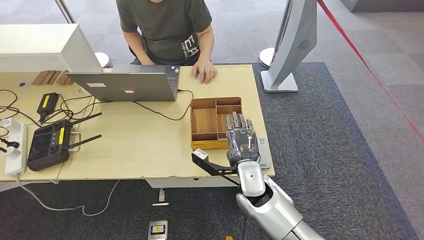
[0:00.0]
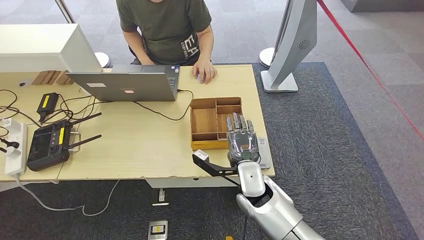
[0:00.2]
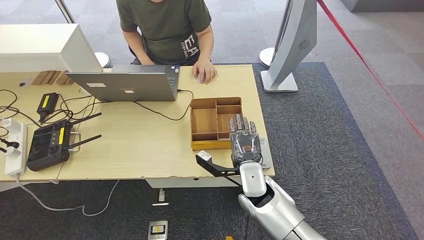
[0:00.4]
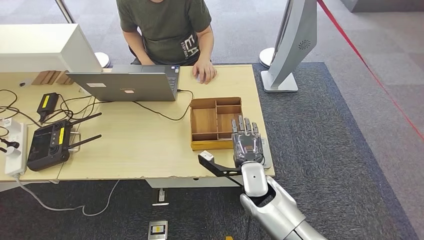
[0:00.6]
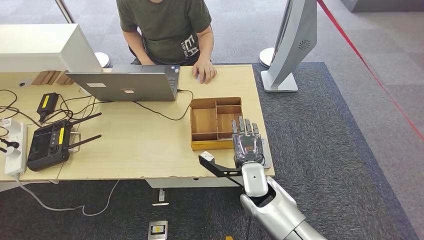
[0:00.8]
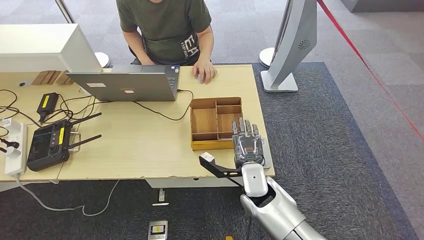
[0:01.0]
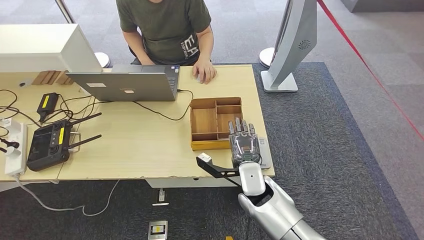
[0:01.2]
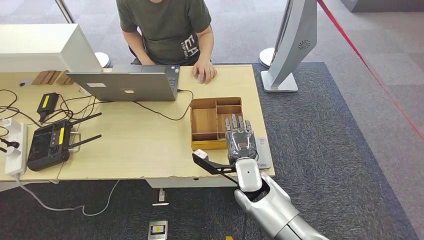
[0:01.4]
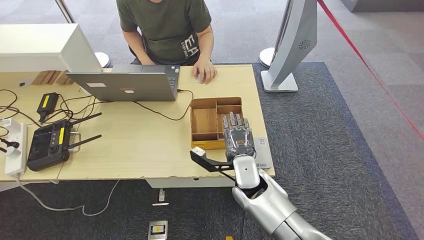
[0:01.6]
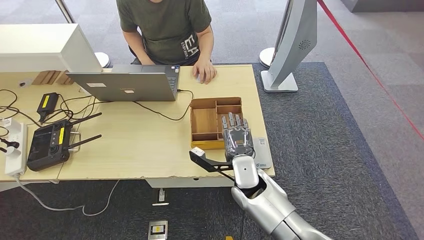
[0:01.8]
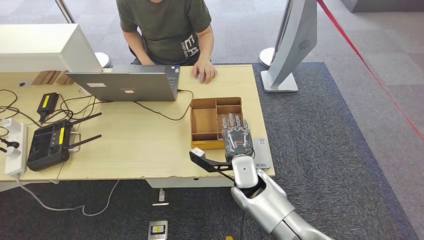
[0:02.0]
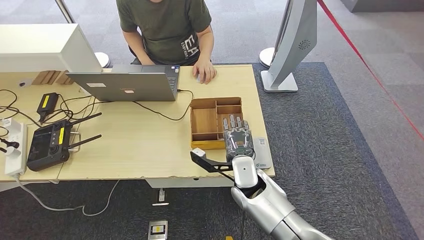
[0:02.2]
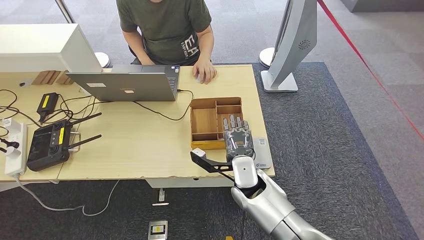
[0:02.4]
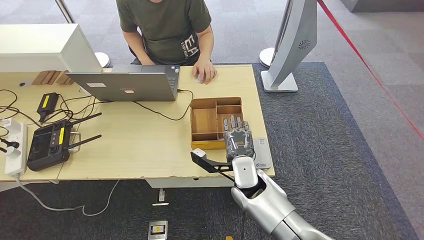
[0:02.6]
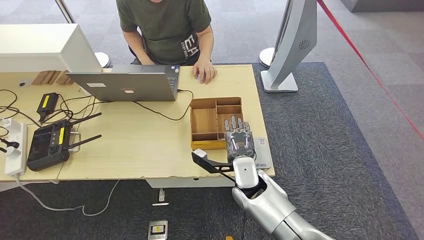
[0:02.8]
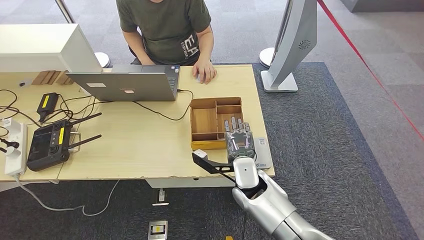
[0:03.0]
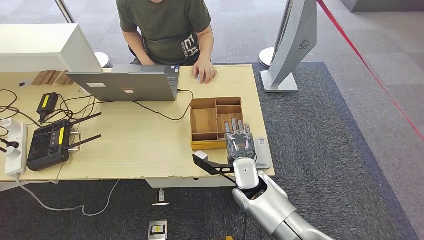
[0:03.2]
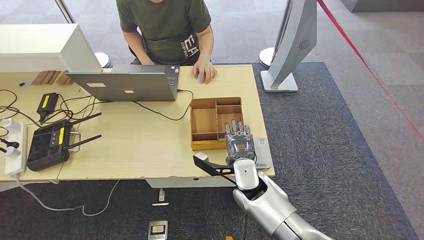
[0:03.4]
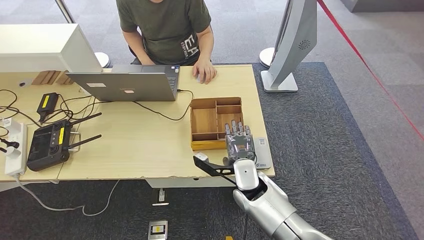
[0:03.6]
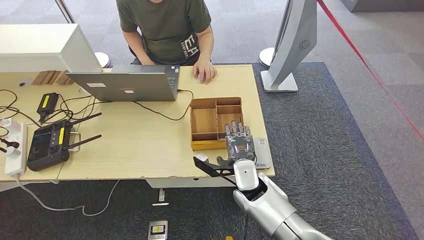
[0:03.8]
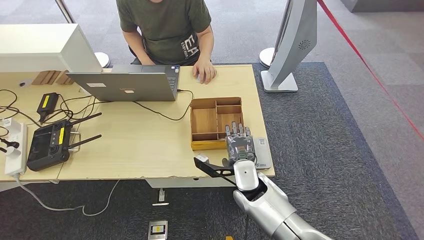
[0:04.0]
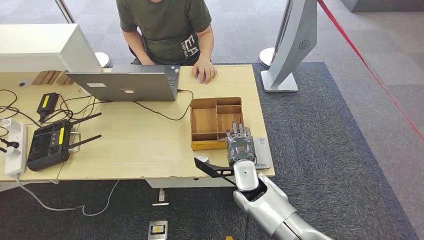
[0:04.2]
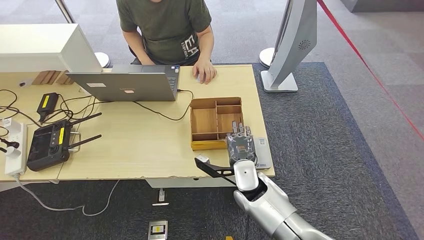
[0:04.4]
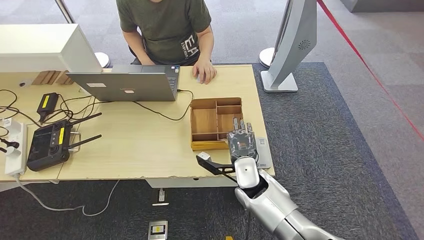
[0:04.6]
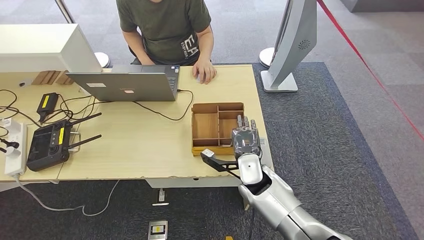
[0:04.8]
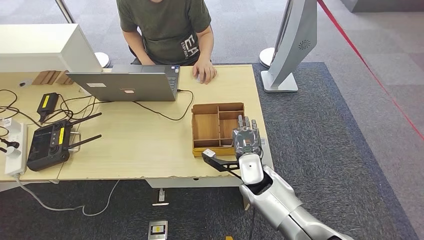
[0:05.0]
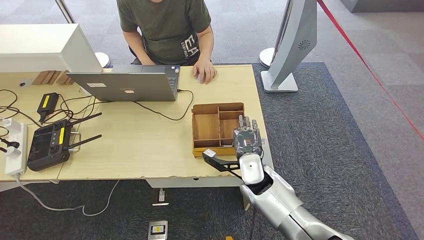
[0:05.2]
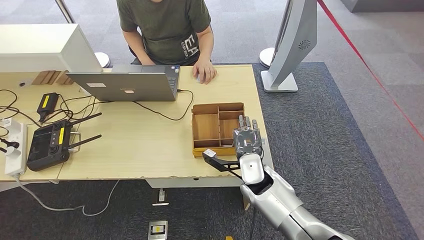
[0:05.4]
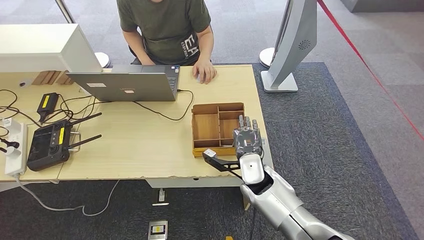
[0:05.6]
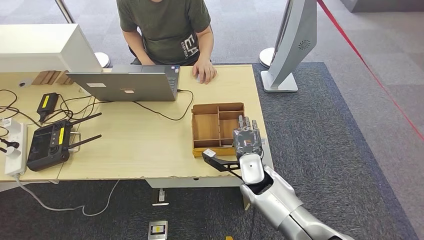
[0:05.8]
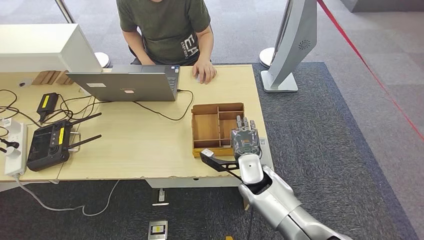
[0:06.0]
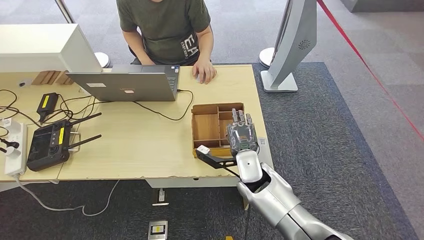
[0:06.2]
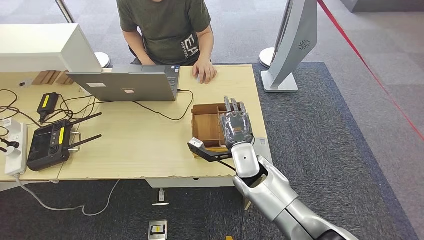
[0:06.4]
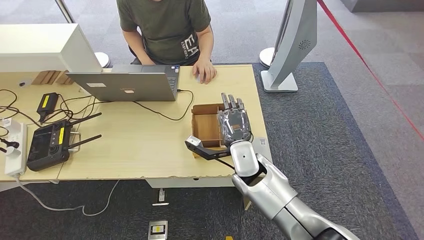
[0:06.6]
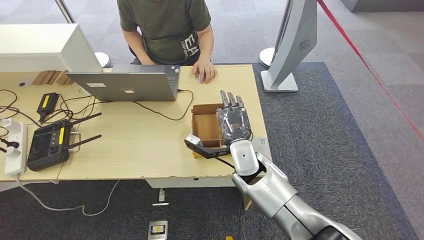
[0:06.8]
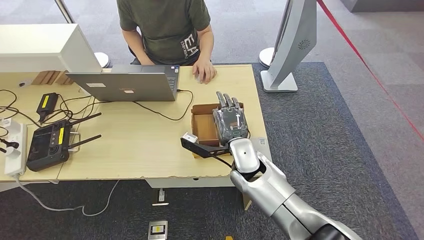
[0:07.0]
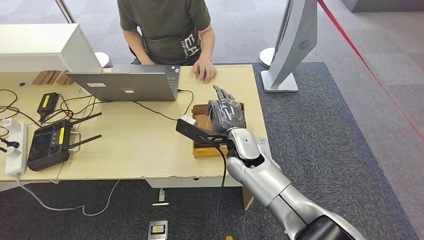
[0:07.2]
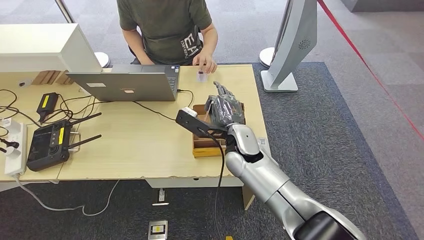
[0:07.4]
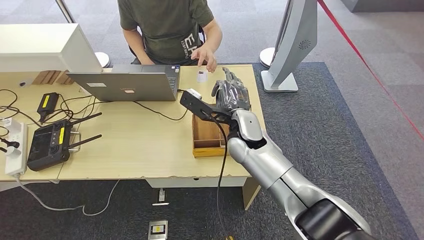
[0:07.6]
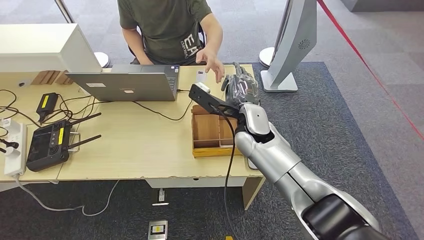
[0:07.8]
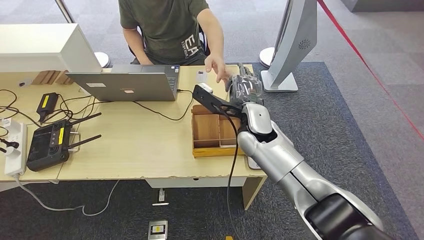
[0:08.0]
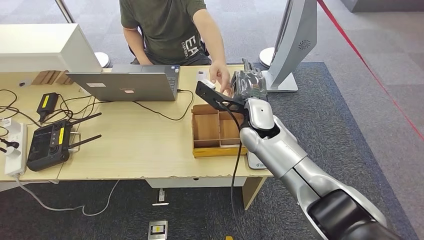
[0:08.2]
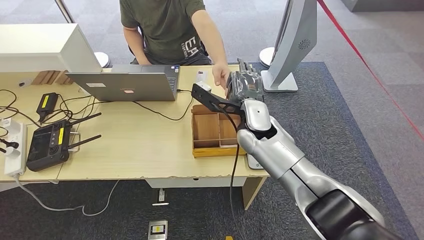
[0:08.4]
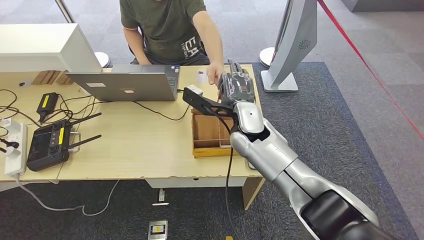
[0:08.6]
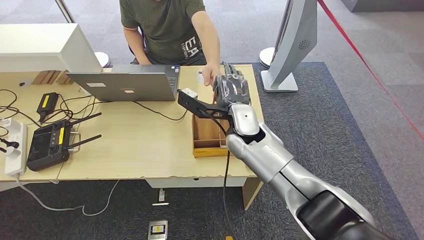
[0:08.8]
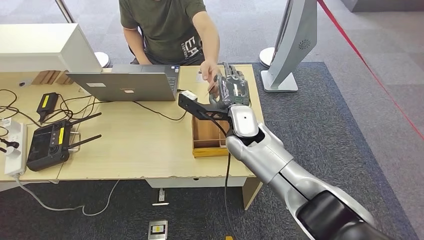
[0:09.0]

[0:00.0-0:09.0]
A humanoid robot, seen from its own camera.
Step, 0:00.0 to 0:07.0: Pick up the room key from the key card box.
Step, 0:07.2 to 0:09.0: Hand the room key to the person.
0:00.0 to 0:01.6: The hands move only a little.
0:01.6 to 0:03.0: The two hands keep their place.
0:03.0 to 0:04.4: The two hands keep their place.
0:04.4 to 0:06.0: The hands stay close to where they were, moving slightly.
0:06.0 to 0:07.6: The right hand moves upward and forward, roughly 15 cm.
0:07.6 to 0:09.0: The hands stay close to where they were, moving slightly.
